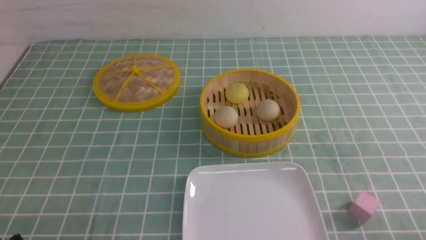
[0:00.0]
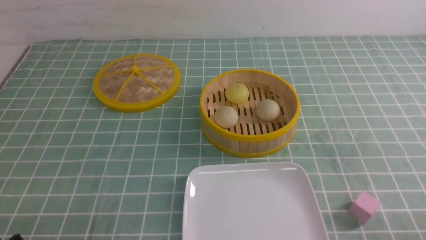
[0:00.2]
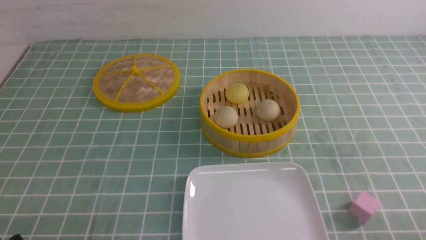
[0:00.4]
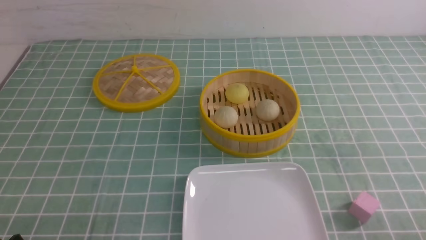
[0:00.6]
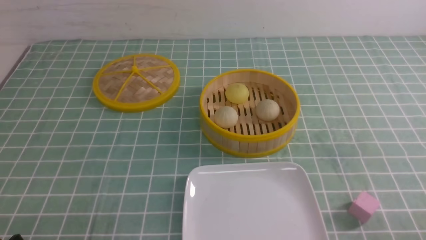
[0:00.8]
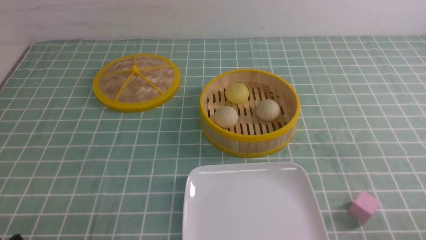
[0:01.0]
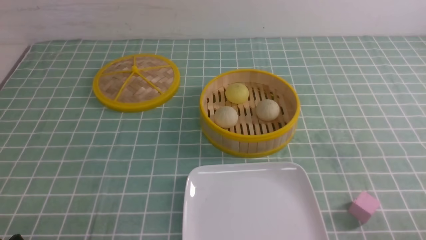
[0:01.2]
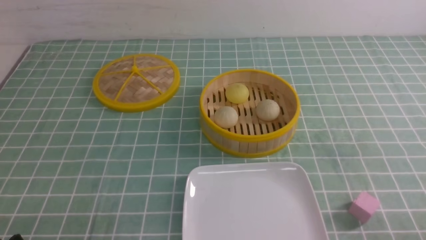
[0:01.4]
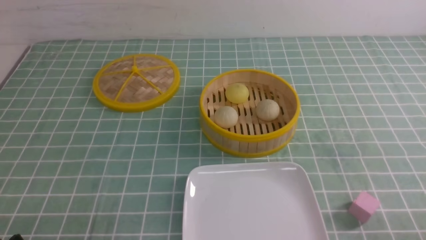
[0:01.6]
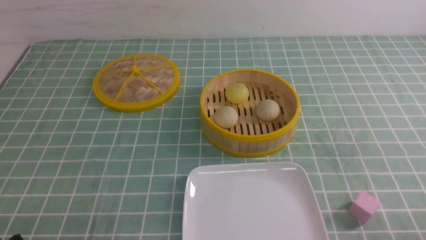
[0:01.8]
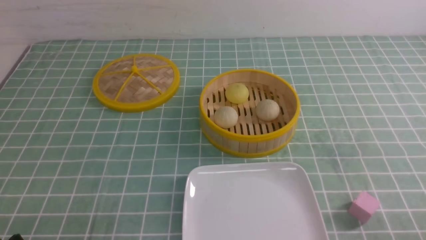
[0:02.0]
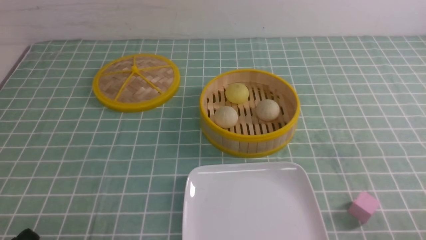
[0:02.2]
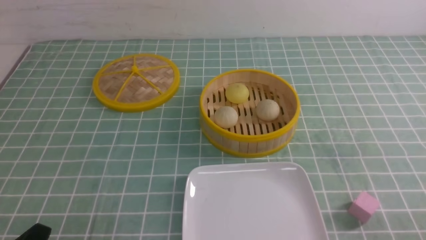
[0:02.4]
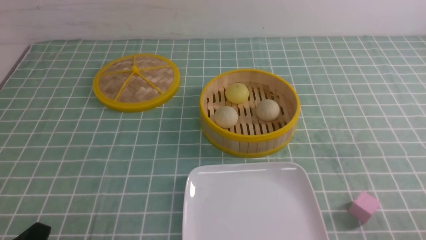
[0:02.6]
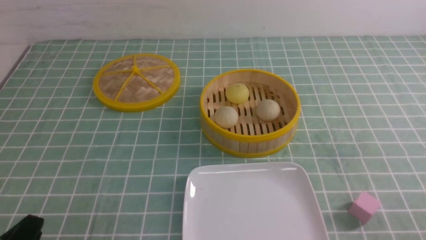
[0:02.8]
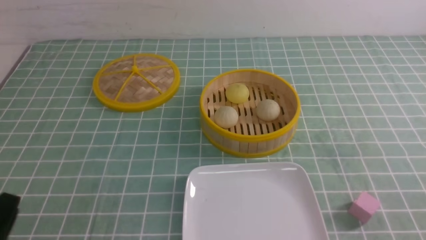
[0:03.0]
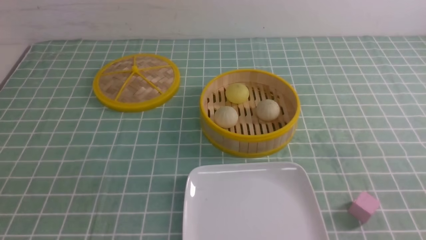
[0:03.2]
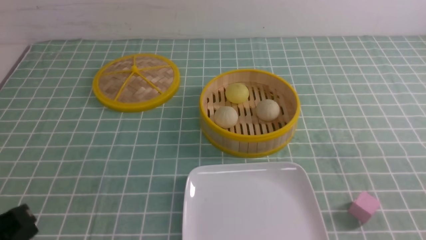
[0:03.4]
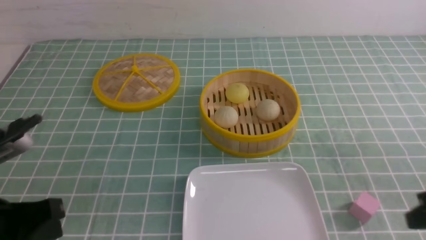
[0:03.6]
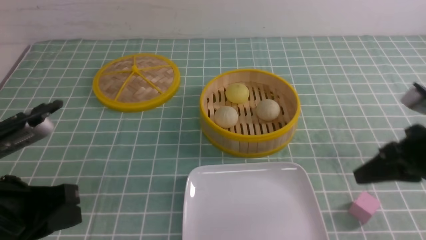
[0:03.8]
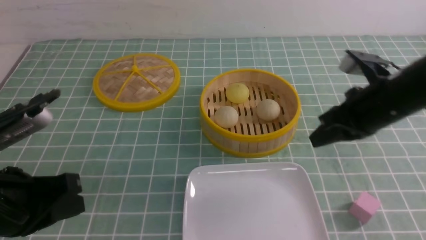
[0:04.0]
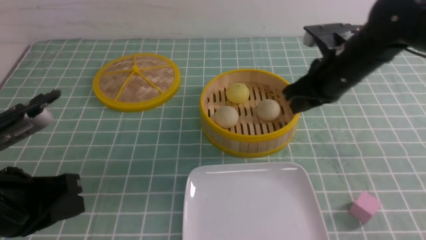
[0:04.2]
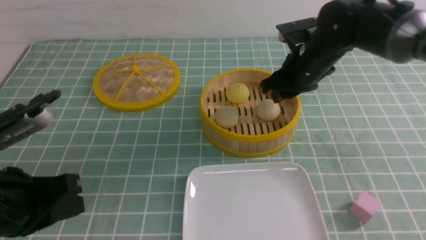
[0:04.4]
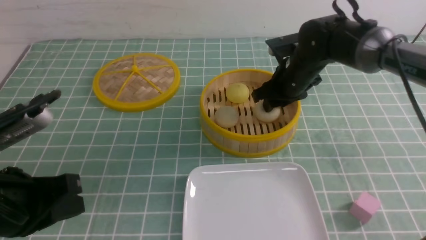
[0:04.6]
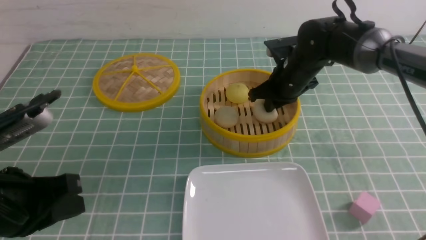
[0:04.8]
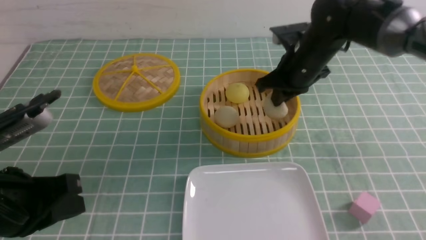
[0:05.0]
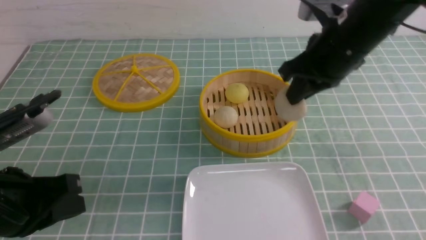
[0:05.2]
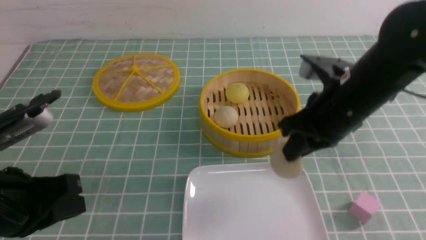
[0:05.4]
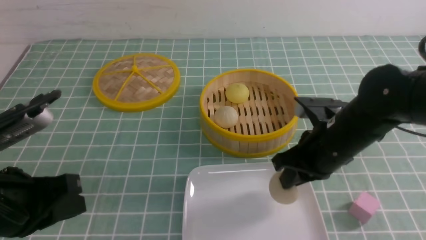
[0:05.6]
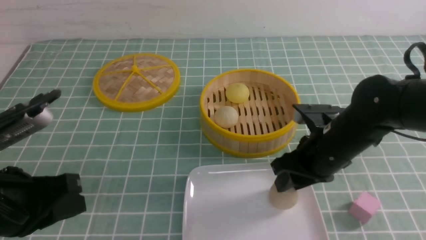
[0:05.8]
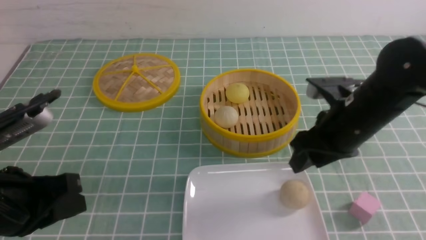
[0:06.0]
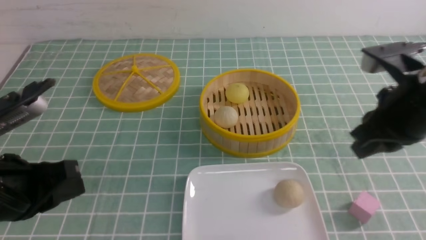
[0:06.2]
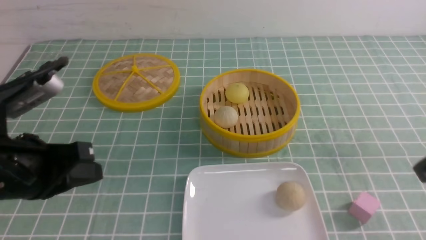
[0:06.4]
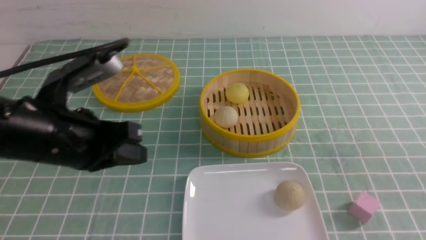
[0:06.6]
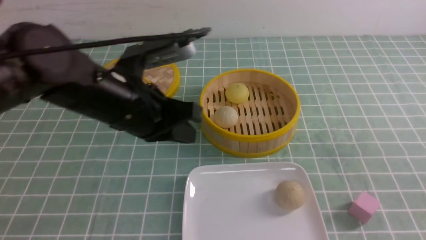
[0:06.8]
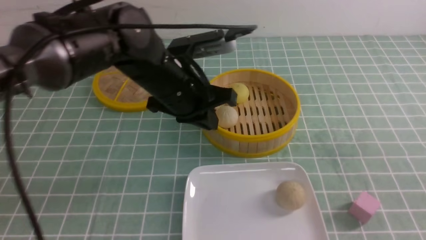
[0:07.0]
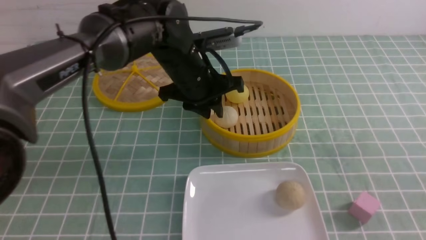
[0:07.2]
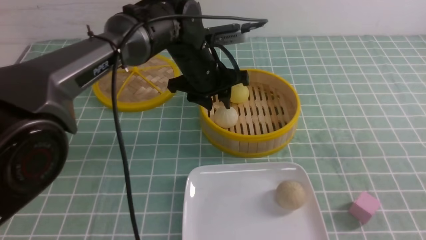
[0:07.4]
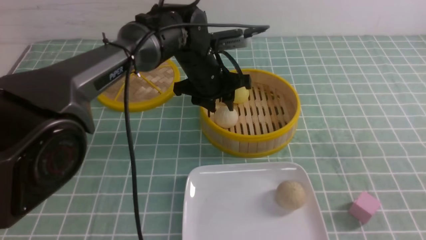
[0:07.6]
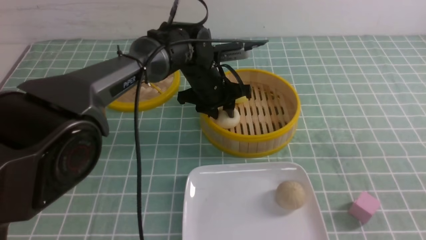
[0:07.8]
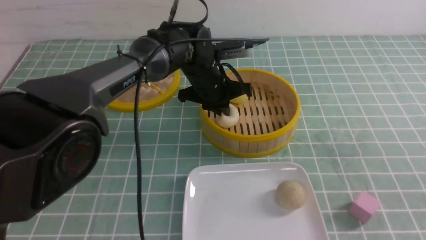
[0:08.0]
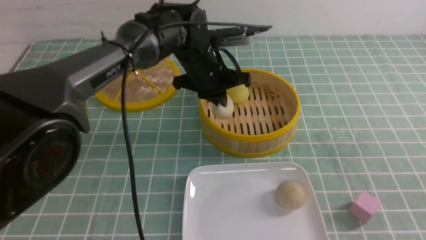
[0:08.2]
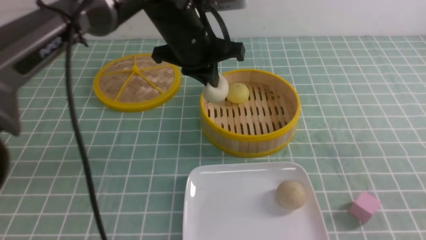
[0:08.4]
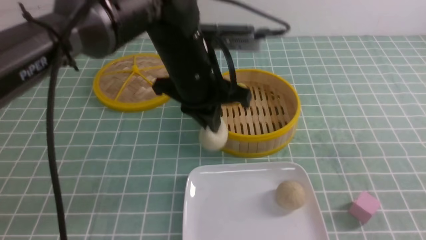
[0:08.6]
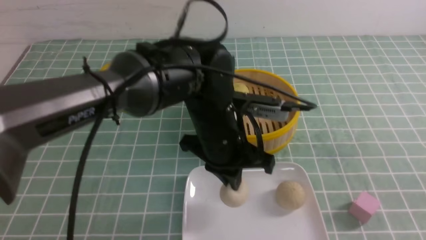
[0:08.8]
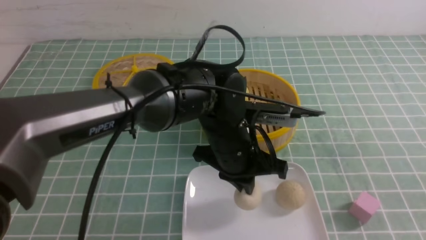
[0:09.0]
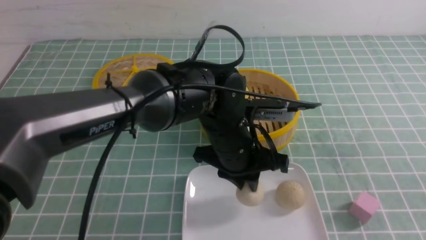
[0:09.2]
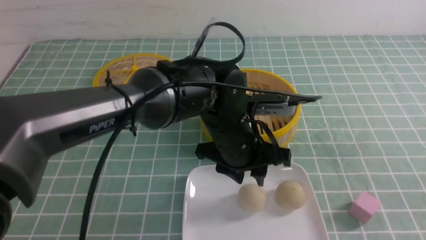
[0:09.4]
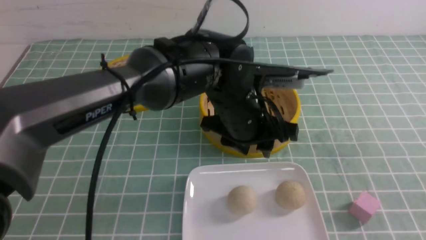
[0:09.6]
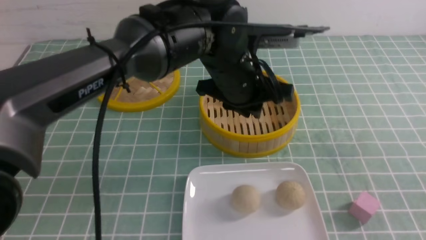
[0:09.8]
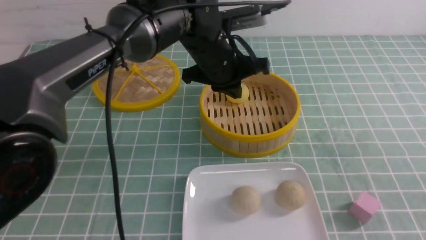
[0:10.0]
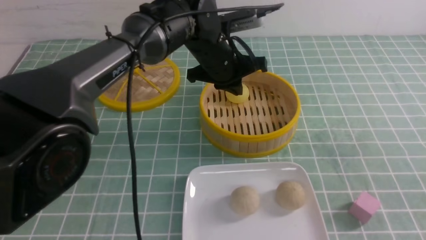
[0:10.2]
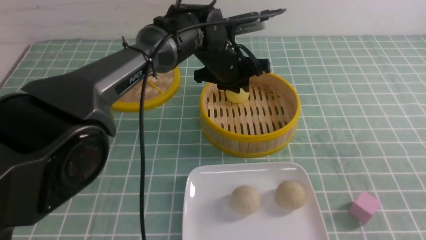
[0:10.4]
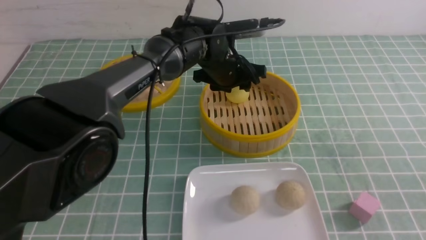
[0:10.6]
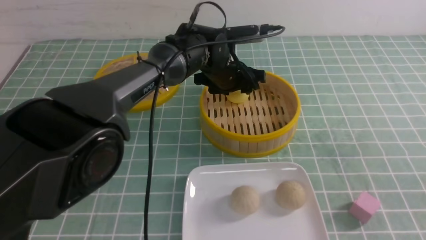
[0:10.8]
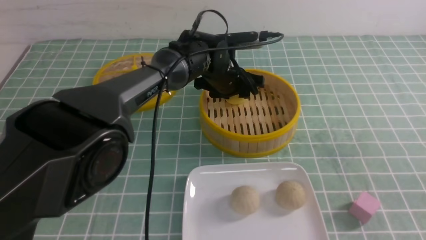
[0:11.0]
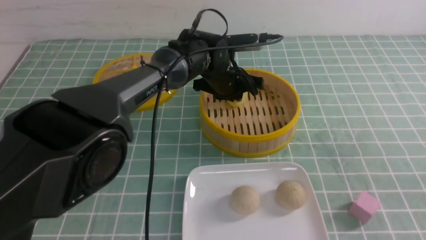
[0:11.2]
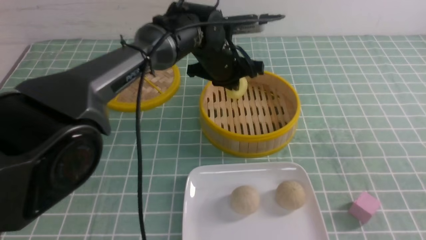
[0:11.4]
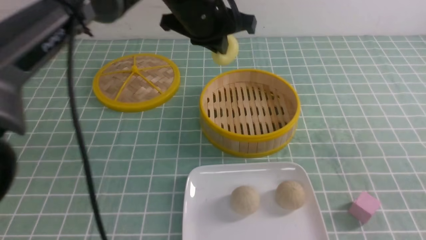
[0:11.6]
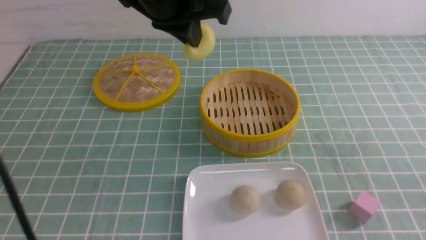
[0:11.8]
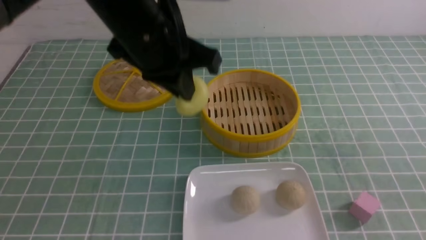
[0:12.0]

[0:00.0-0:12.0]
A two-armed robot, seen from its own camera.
Step, 0:00.0 to 0:04.8: use the right arm to grab the steamed stuffed bun that is closest to it.
Step, 0:05.0 to 0:05.8: use the right arm to put the steamed stuffed bun into the plate.
Step, 0:06.0 to 0:08.0: use the left arm to grab the steamed stuffed bun that is closest to it.
Step, 0:08.4 to 0:09.2: use the left arm to put the steamed stuffed bun into the plate.
Step, 0:09.4 to 0:11.2: use the left arm to grab the steamed stuffed bun that is closest to it.
0:00.0 to 0:01.6: Both grippers stay put.
0:01.6 to 0:03.0: The left gripper travels upward by about 5 cm.
0:03.0 to 0:04.4: The right gripper moves forward and to the left, some 40 cm, and opens its fingers. The left gripper is displaced forward by about 10 cm, and closes up.
0:04.4 to 0:06.0: The right gripper is displaced backward by some 15 cm, and closes, then reopens.
0:06.0 to 0:07.6: The right gripper shifts about 20 cm backward and to the right, and closes; the left gripper moves forward and to the right, some 35 cm, and opens up.
0:07.6 to 0:09.0: The left gripper shifts some 15 cm backward, and closes its fingers.
0:09.0 to 0:10.4: The left gripper shifts roughly 15 cm forward.
0:10.4 to 0:12.0: The left gripper goes up and down, roughly 20 cm each way, reversing 2 times, and closes.

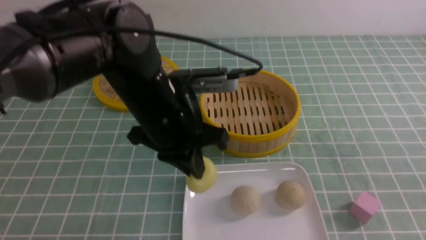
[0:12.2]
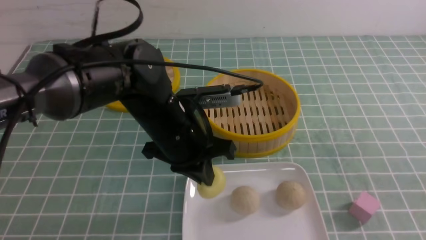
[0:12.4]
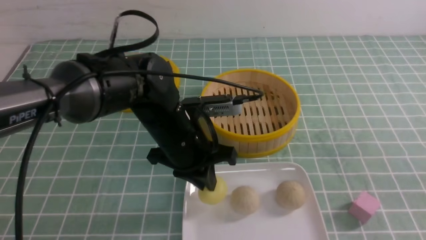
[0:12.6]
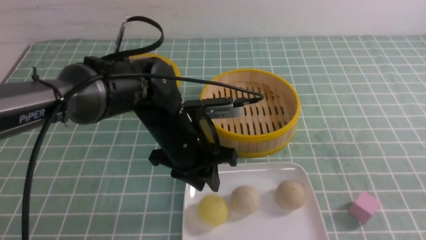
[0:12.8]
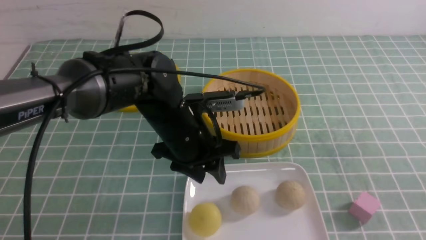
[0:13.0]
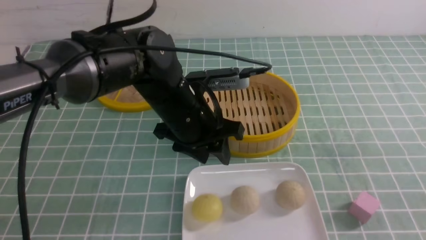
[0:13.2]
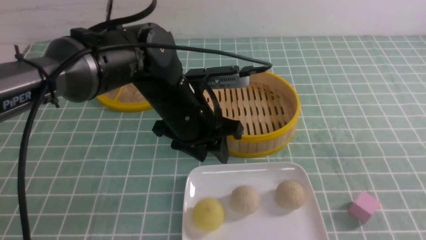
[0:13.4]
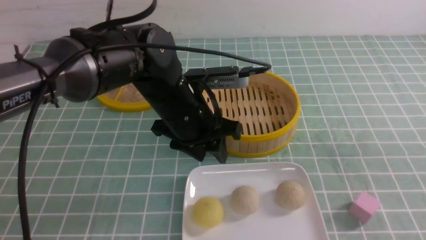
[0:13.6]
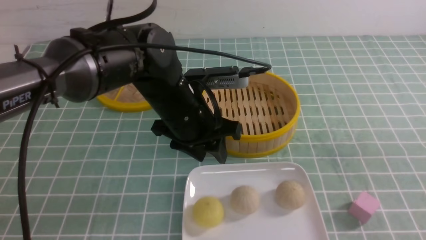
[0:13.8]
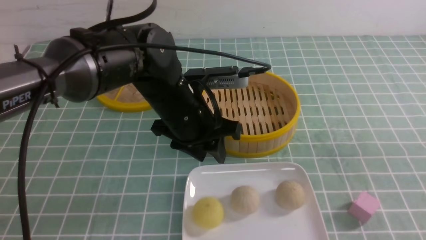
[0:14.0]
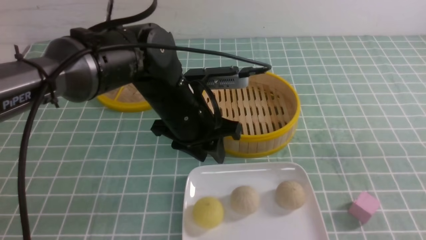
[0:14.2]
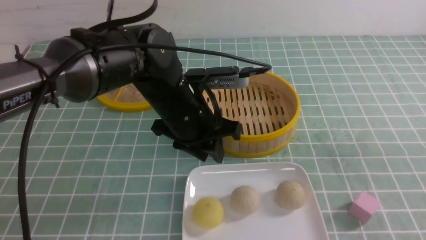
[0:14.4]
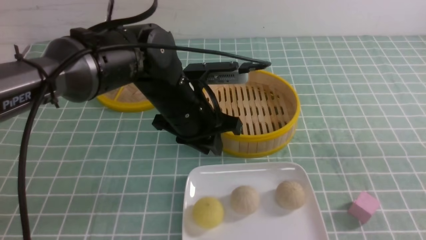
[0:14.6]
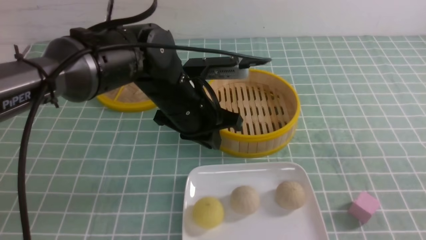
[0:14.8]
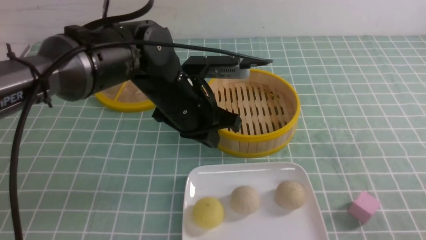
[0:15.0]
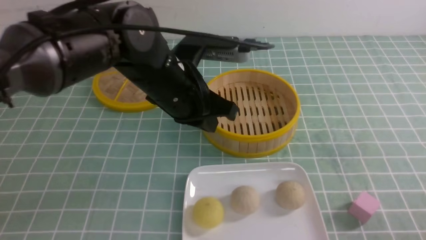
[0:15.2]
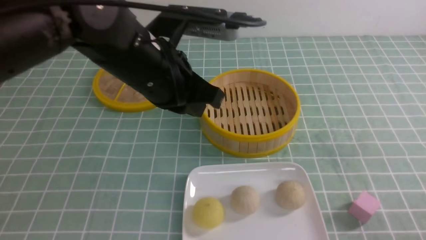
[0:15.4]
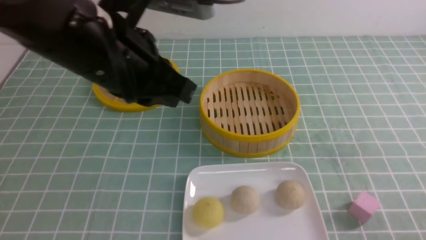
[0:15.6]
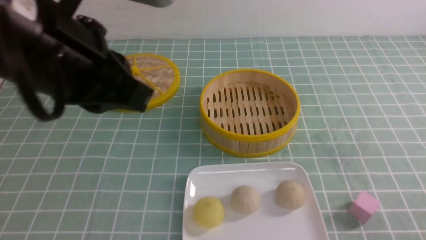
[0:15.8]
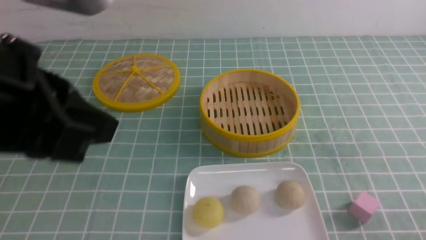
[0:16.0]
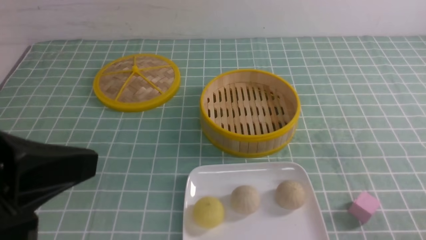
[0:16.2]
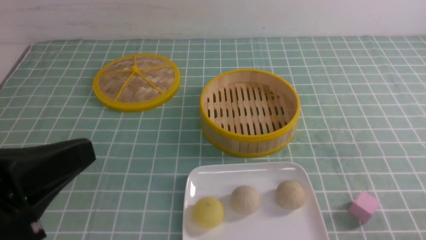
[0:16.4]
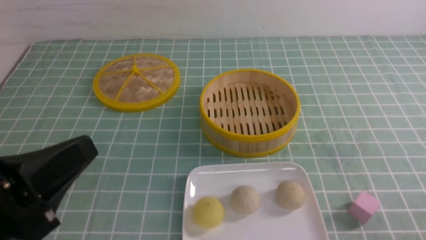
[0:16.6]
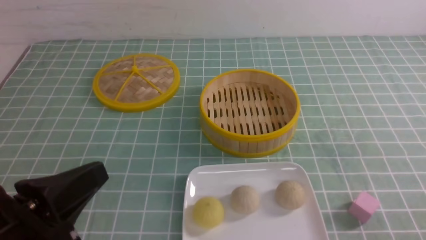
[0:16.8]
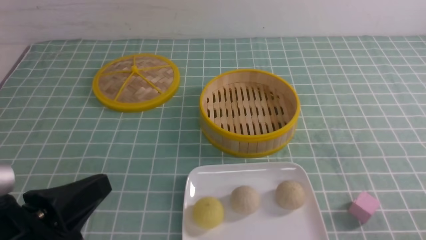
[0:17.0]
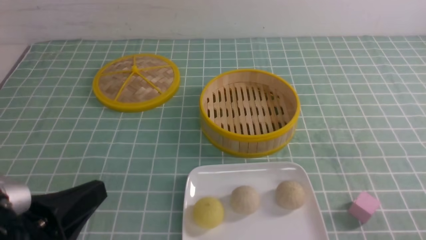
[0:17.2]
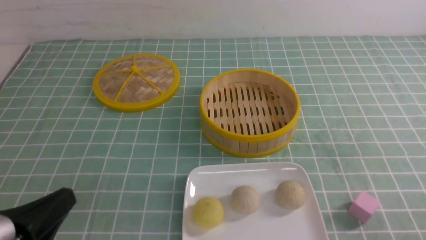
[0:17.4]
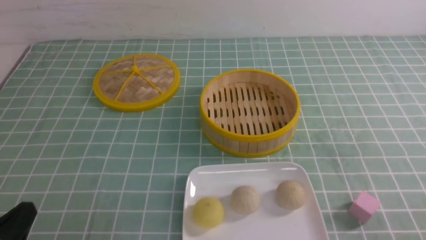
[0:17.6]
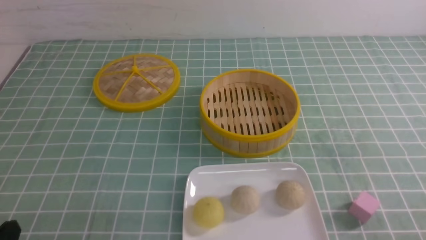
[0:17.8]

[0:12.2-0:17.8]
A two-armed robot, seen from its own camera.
0:12.2 to 0:13.6: The left gripper opens its fingers. The right gripper closes.
0:13.6 to 0:15.0: The right gripper shifts about 10 cm downward. Meanwhile the left gripper closes its fingers.
0:15.0 to 0:16.4: The left gripper travels backward and to the left by roughly 25 cm.
0:16.4 to 0:17.8: The left gripper goes some 15 cm downward.
